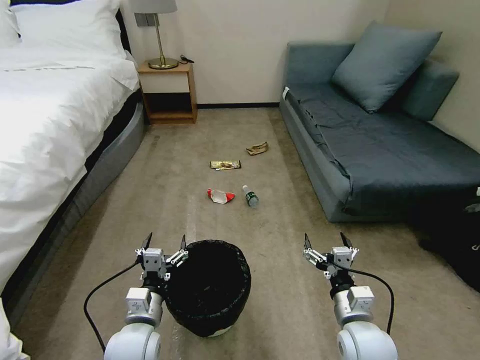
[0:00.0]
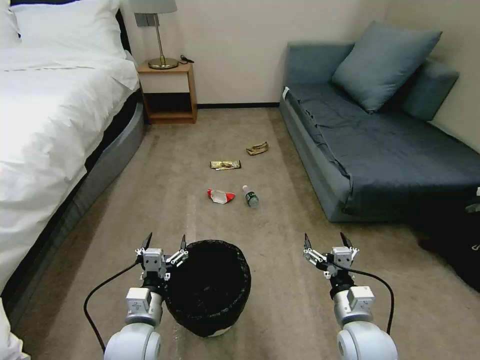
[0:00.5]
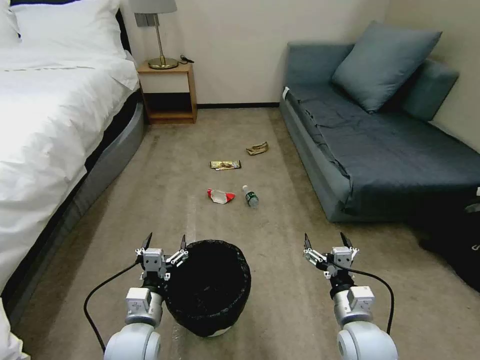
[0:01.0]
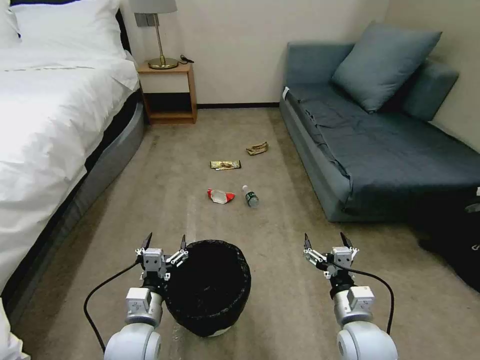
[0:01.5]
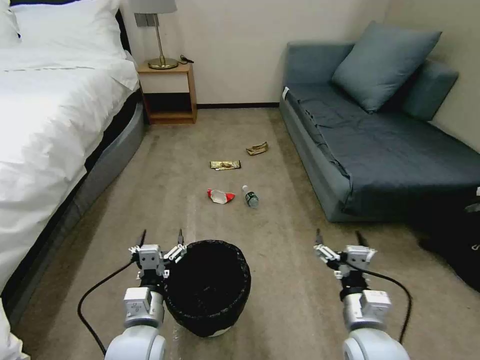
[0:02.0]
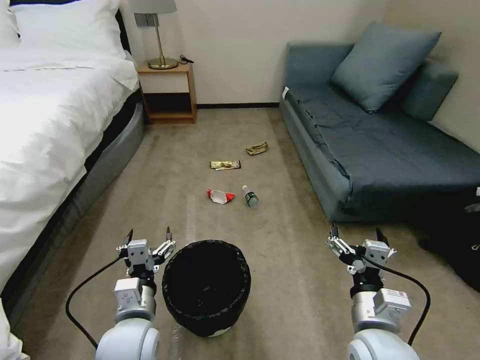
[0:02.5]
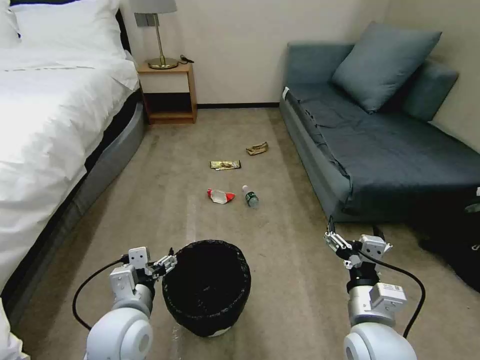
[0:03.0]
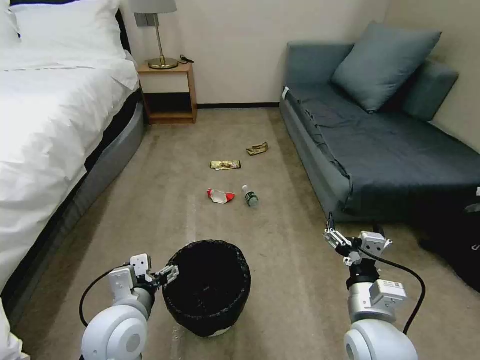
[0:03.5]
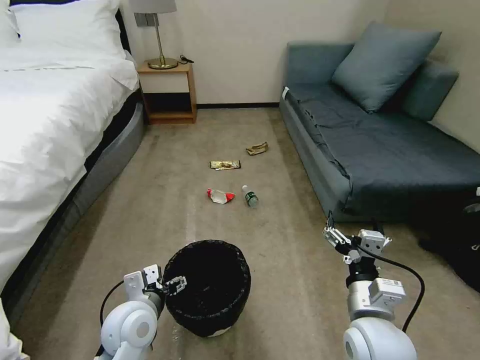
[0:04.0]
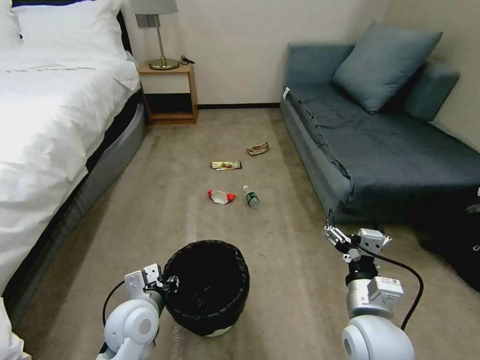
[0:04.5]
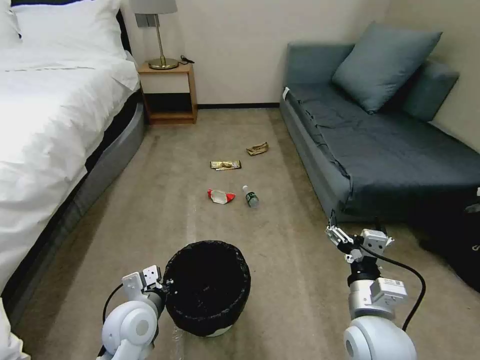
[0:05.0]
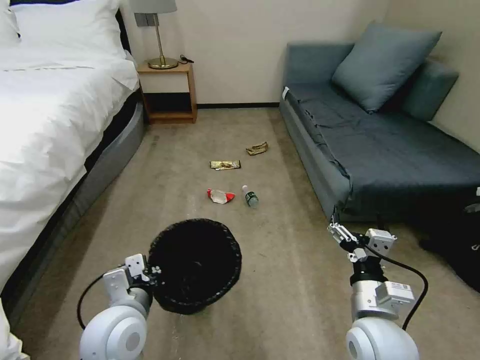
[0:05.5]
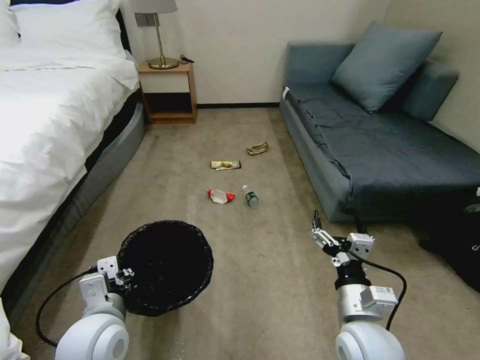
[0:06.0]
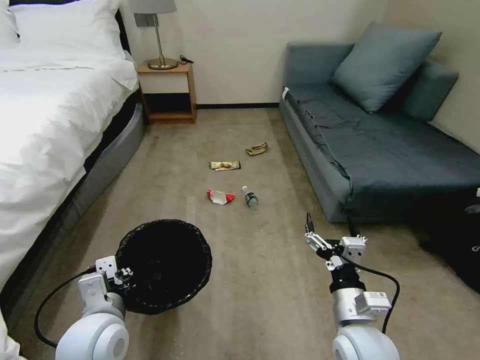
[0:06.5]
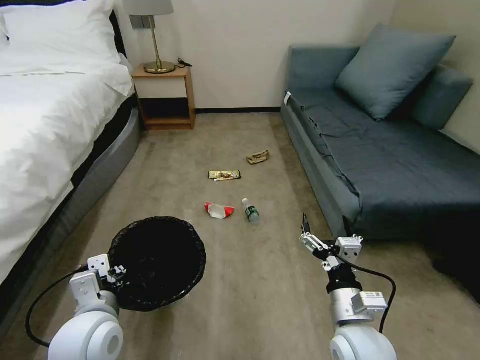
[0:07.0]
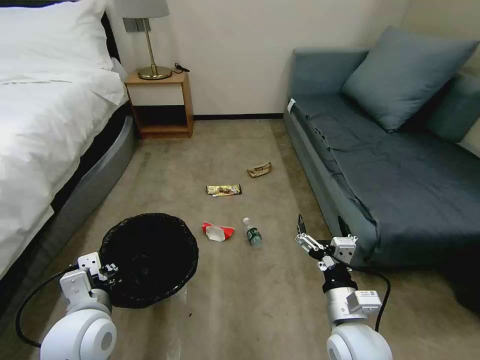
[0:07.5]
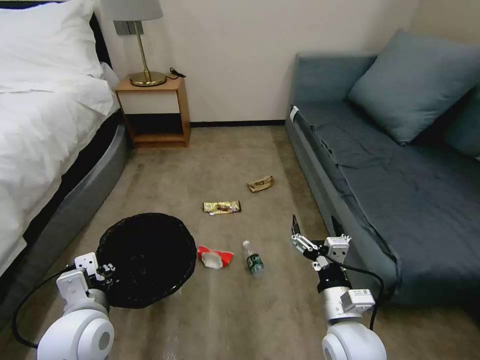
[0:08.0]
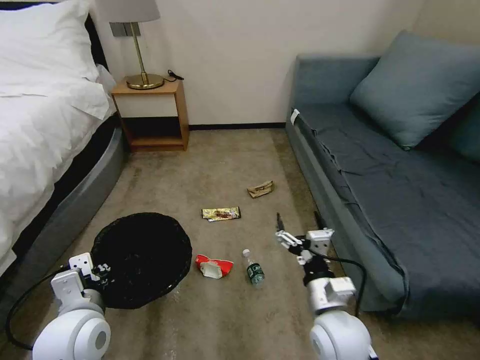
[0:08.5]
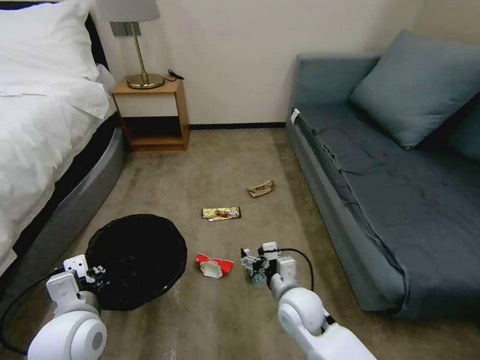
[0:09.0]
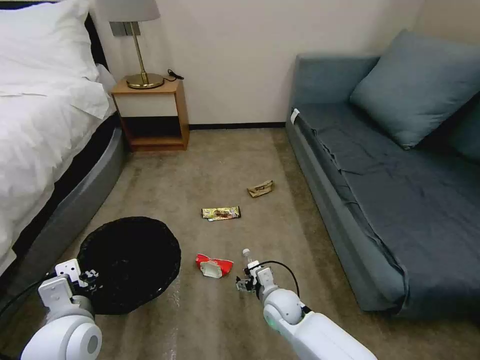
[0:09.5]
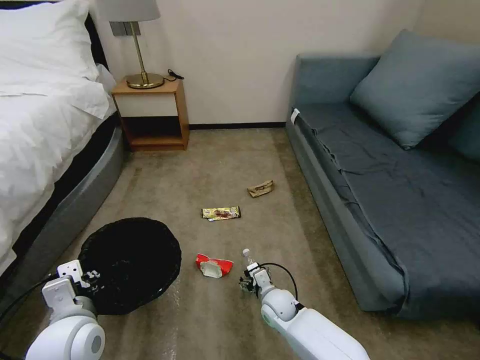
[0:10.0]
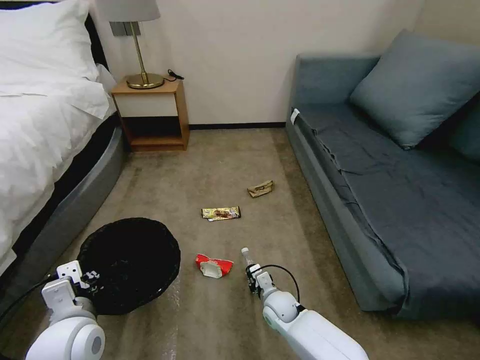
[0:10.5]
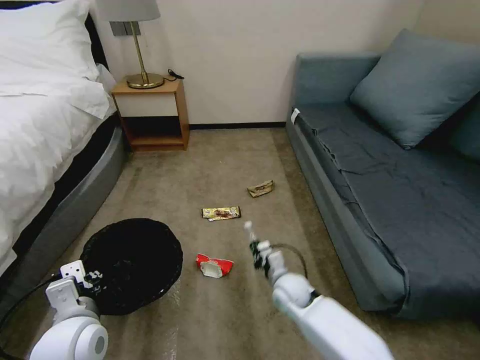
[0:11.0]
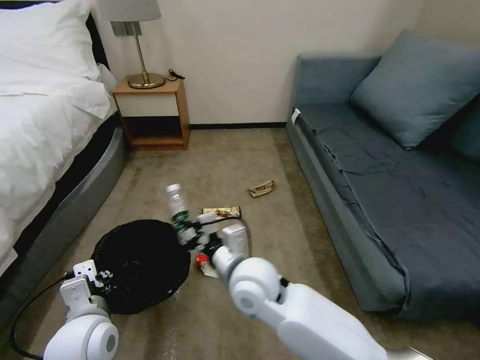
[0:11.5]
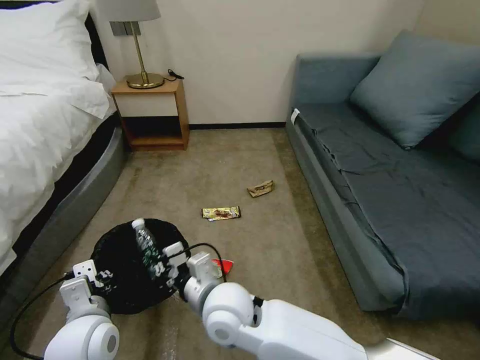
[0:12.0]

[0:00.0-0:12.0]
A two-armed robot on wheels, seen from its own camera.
Task of the whole recording: Pick up the trash bin, then pick up the garbage on the floor and place it into the trash bin.
0:02.0 to 0:04.0: The left gripper shifts by about 5 cm.
0:04.0 to 0:06.0: The left gripper shifts roughly 5 cm upward, and closes.
0:08.0 to 0:10.0: The right gripper moves downward, forward and to the left, roughly 25 cm.
0:10.0 to 0:12.0: The right gripper heads upward and to the left, covering approximately 25 cm, and closes.

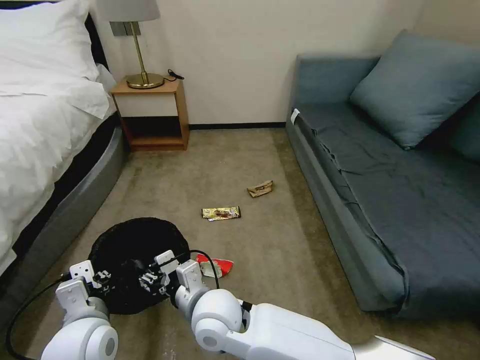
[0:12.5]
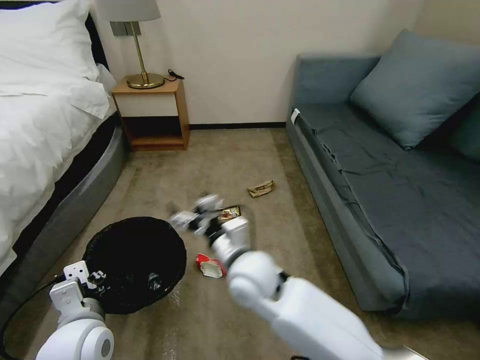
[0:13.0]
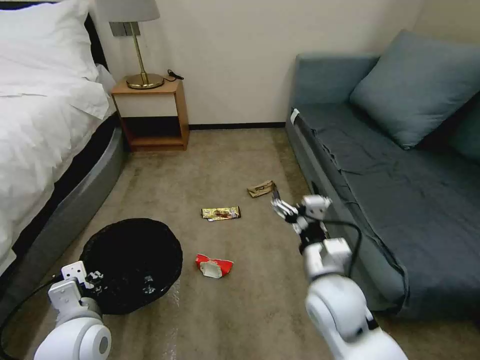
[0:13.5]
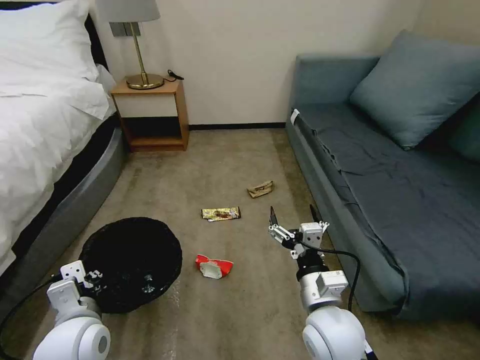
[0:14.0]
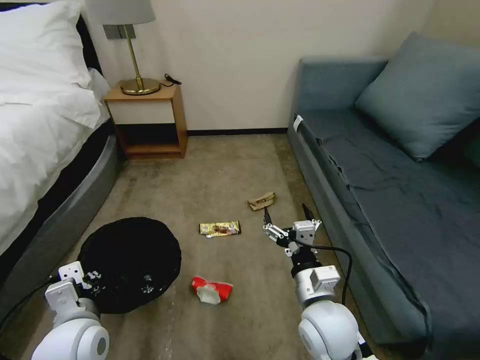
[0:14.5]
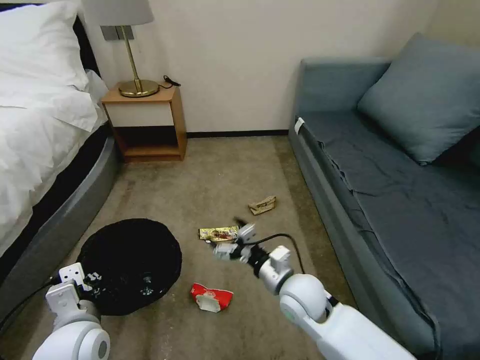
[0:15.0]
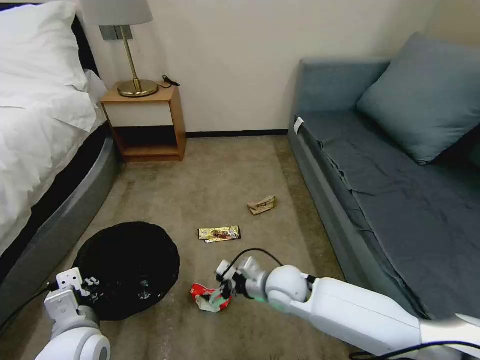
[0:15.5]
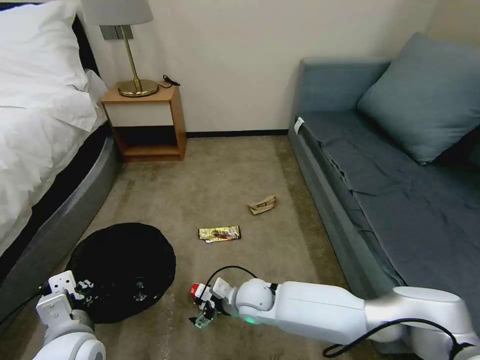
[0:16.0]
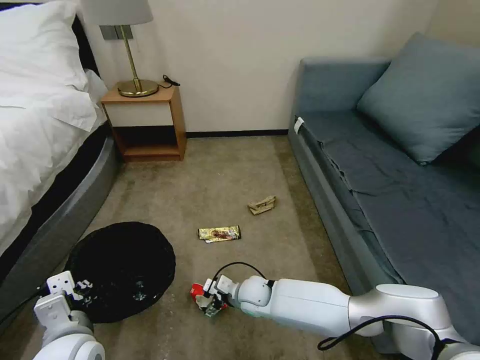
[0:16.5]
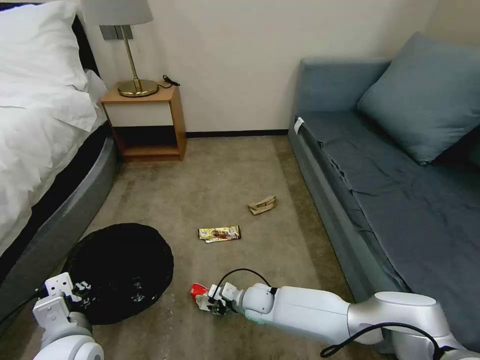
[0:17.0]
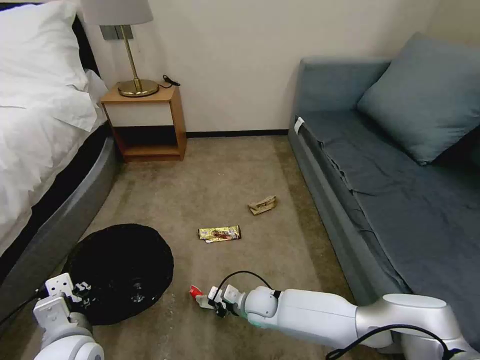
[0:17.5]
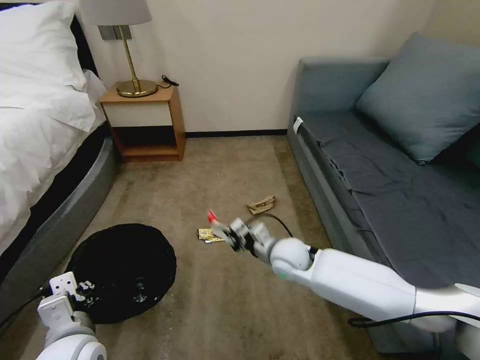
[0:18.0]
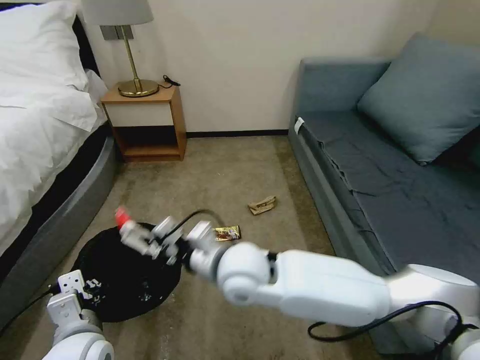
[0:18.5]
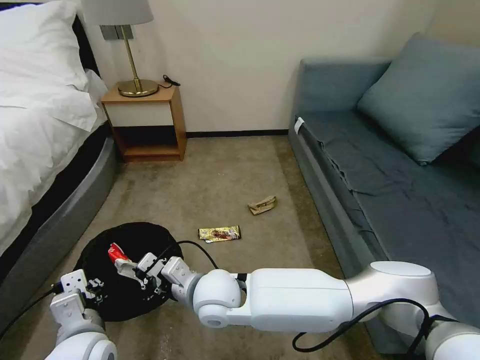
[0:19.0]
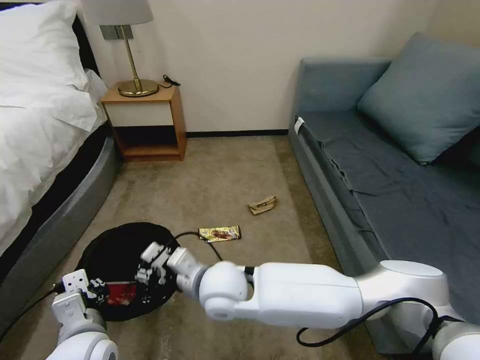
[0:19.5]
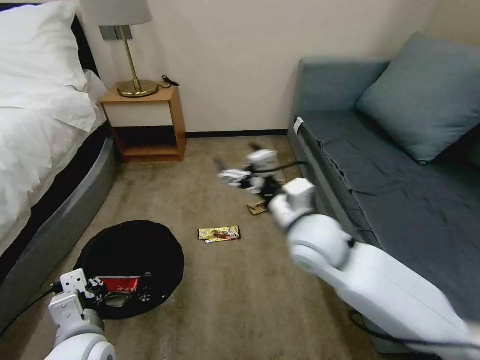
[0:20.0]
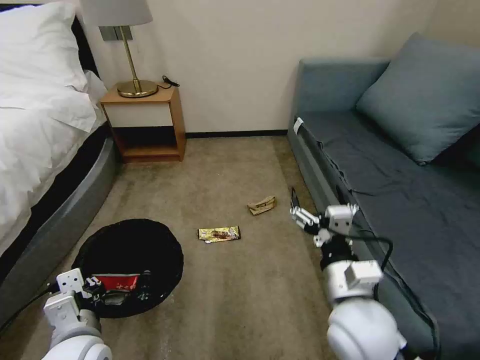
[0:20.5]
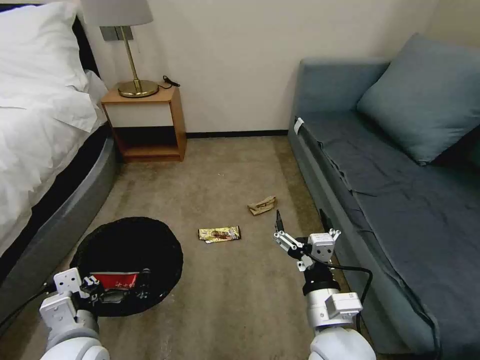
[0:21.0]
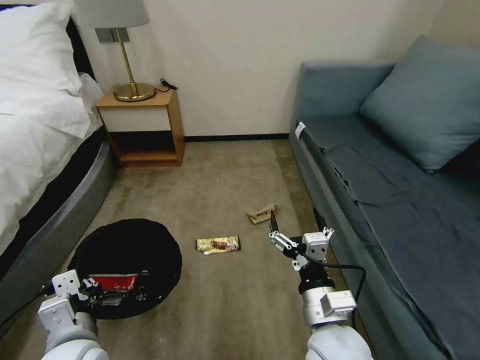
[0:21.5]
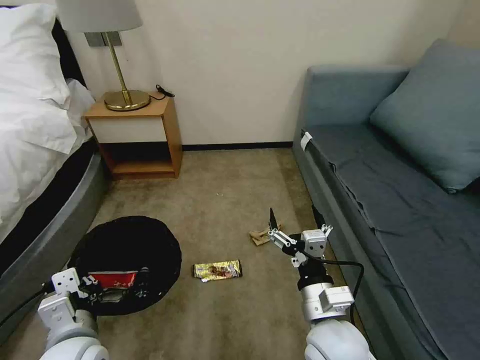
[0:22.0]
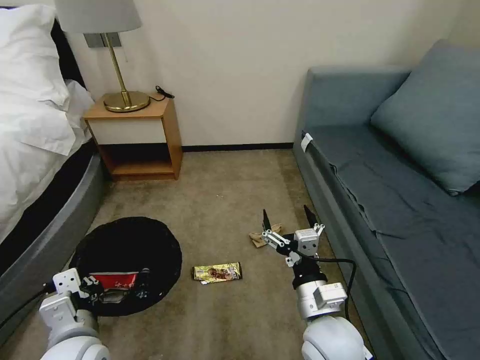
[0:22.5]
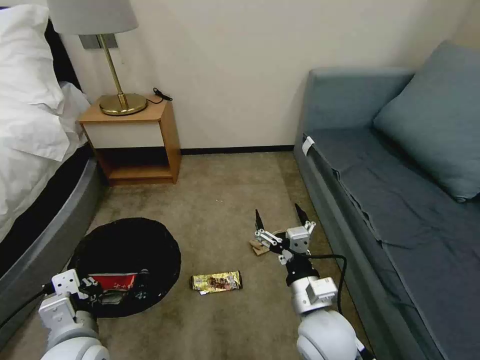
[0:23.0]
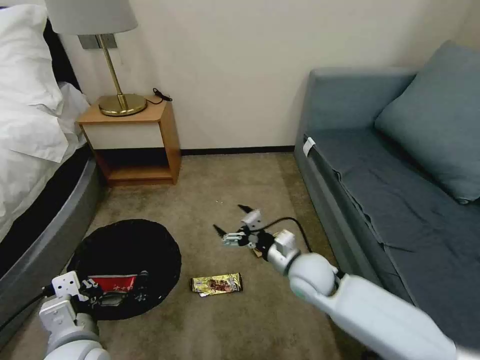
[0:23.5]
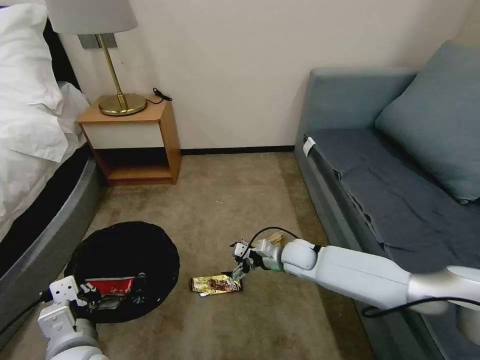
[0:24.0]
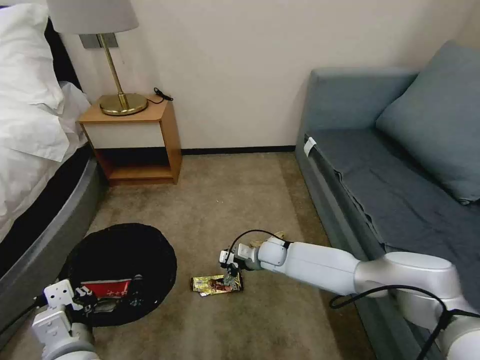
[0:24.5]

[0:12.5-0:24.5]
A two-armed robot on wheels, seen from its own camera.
Task of the whole recording: Pick up the trash bin, then pick up the garbage on the floor and place it into the trash bin.
0:12.5 to 0:14.5: The right gripper goes about 20 cm to the right, and opens.
0:14.5 to 0:16.5: The right gripper is displaced downward, forward and to the left by some 25 cm.
0:16.5 to 0:18.5: The right gripper is displaced upward by some 25 cm, and closes.
0:18.5 to 0:20.5: The right gripper moves to the right and backward, about 20 cm, and opens up.
0:20.5 to 0:22.5: The right gripper shifts by approximately 5 cm.
0:22.5 to 0:24.5: The right gripper shifts about 30 cm forward and downward.

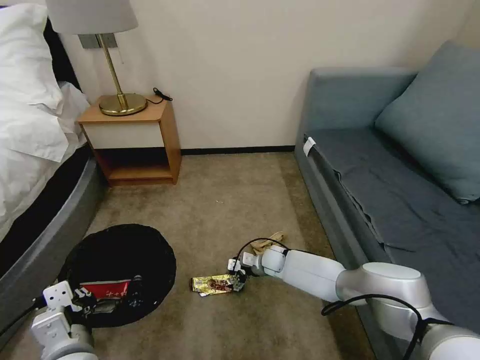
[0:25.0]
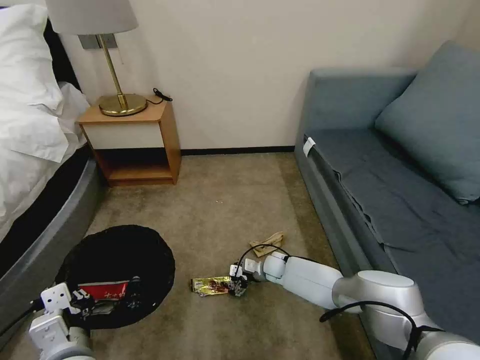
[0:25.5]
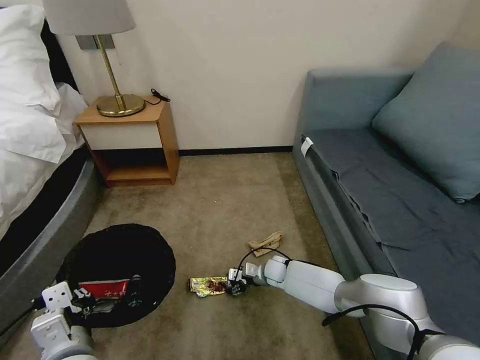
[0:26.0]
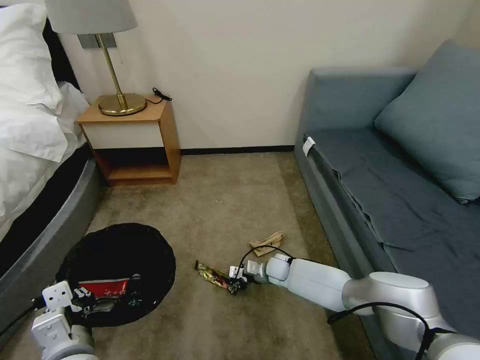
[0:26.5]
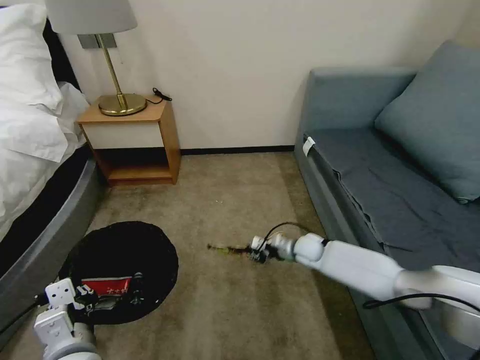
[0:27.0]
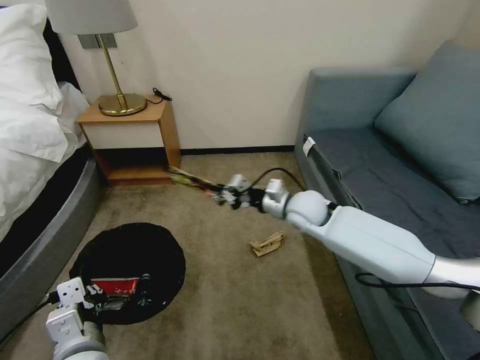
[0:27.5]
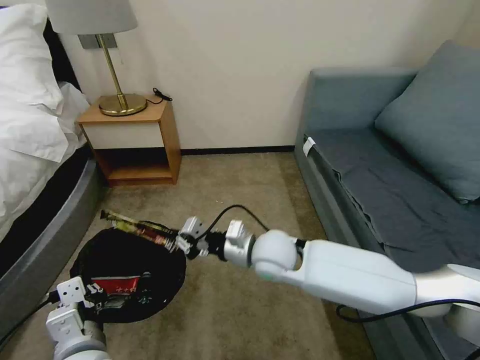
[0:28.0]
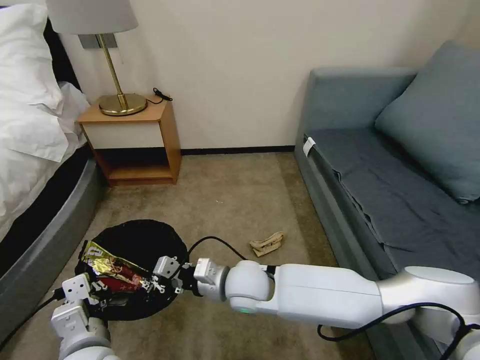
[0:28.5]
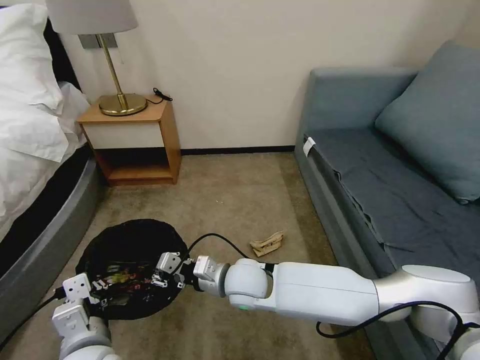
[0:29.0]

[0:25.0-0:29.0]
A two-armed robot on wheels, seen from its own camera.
Task of the whole recording: Pick up the trash bin, then pick up the garbage on the floor and place it into the trash bin.
0:25.0 to 0:27.0: The right gripper shifts about 10 cm to the right and upward, and closes up.
0:27.0 to 0:29.0: The right gripper heads to the left, backward and upward, covering about 30 cm, and opens.
